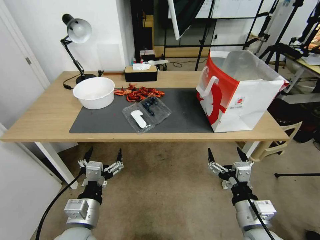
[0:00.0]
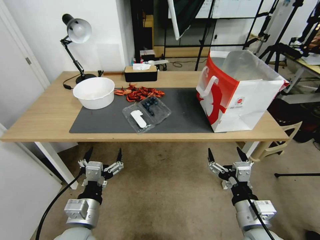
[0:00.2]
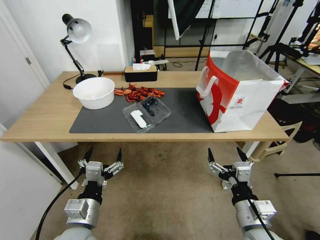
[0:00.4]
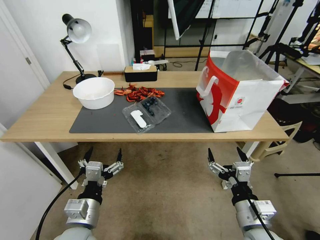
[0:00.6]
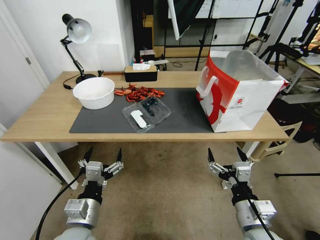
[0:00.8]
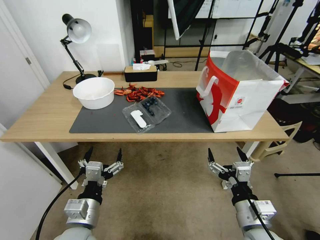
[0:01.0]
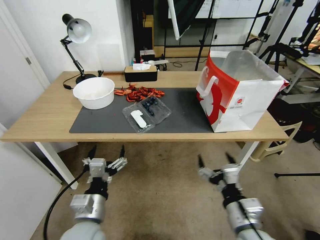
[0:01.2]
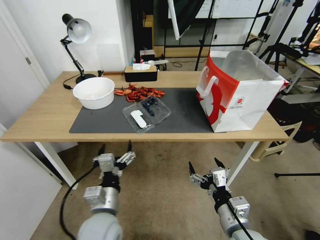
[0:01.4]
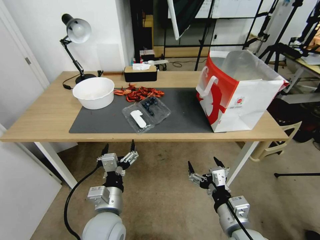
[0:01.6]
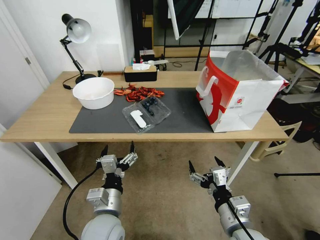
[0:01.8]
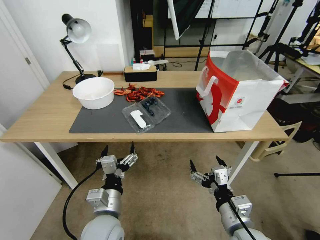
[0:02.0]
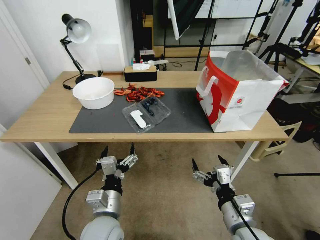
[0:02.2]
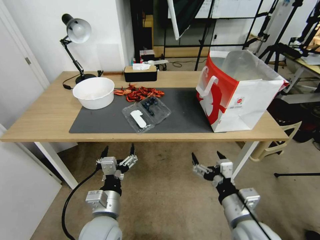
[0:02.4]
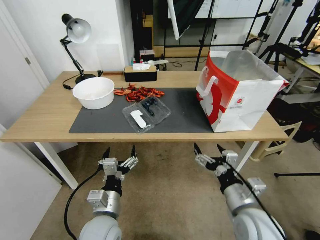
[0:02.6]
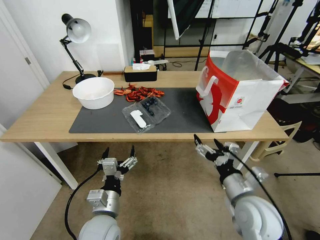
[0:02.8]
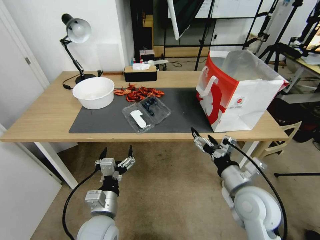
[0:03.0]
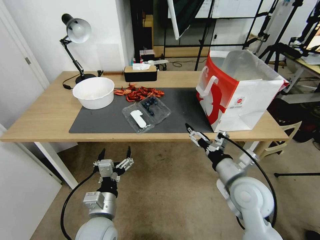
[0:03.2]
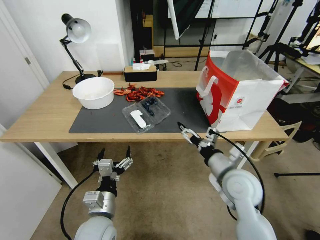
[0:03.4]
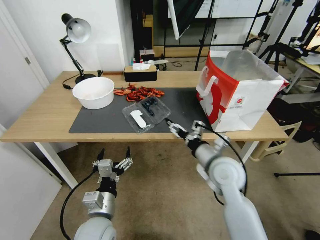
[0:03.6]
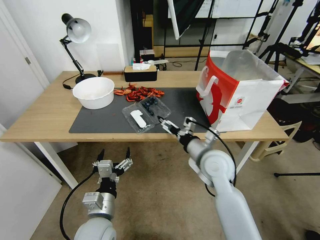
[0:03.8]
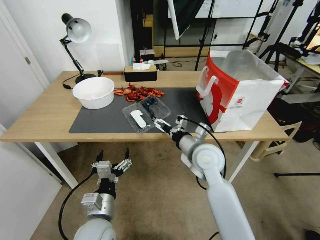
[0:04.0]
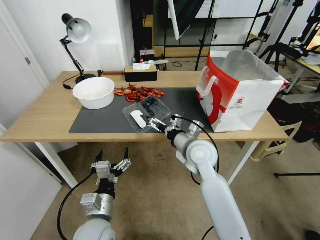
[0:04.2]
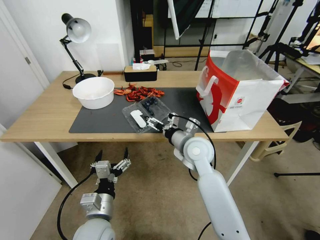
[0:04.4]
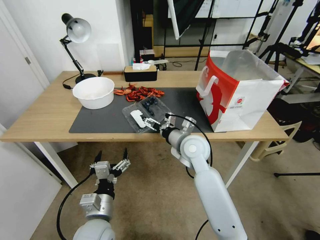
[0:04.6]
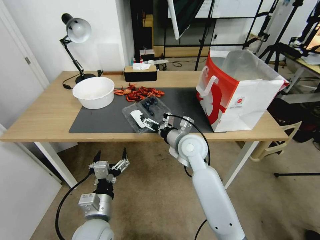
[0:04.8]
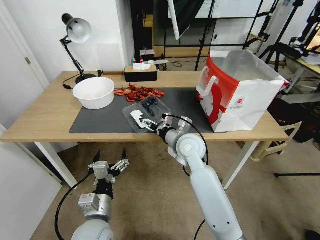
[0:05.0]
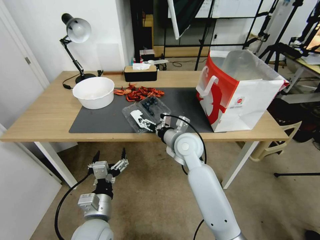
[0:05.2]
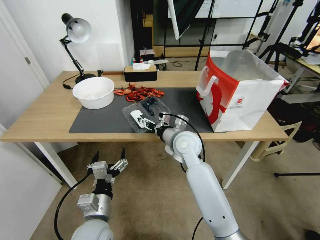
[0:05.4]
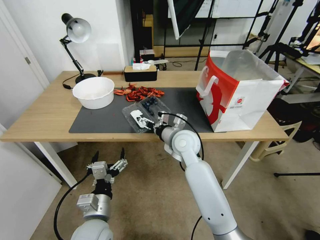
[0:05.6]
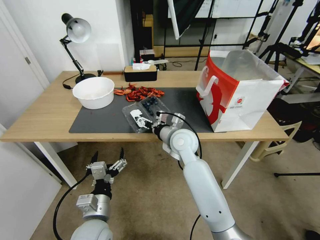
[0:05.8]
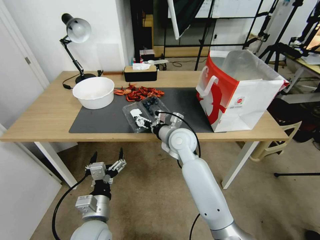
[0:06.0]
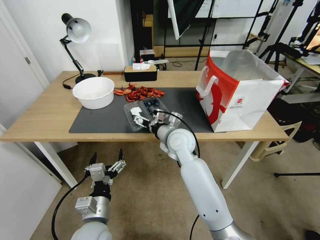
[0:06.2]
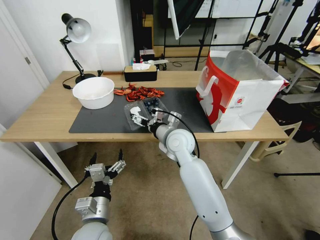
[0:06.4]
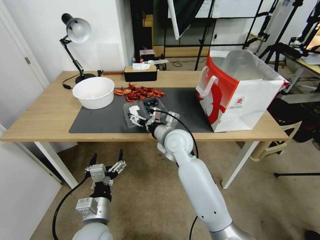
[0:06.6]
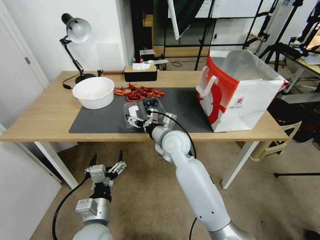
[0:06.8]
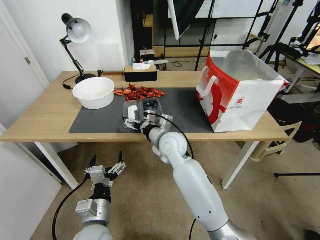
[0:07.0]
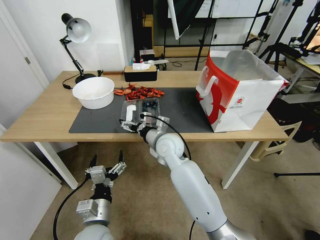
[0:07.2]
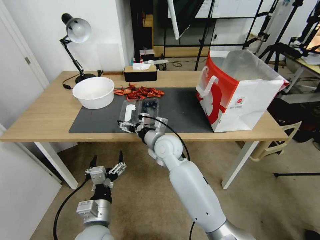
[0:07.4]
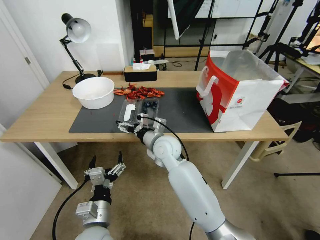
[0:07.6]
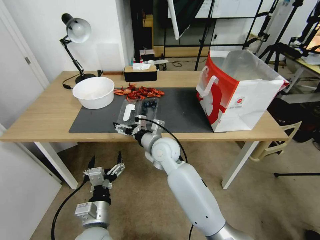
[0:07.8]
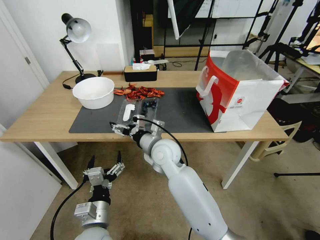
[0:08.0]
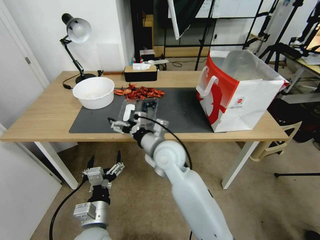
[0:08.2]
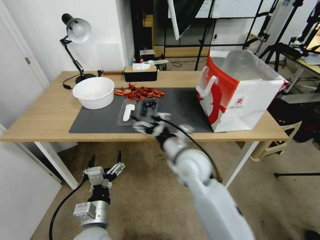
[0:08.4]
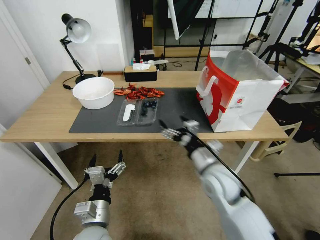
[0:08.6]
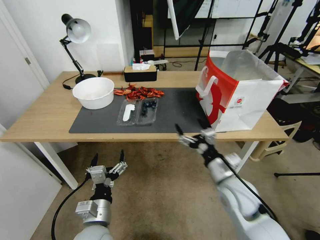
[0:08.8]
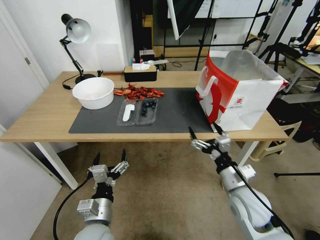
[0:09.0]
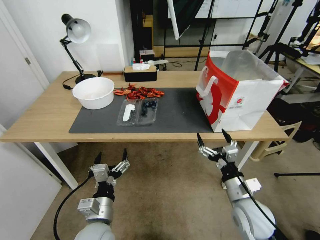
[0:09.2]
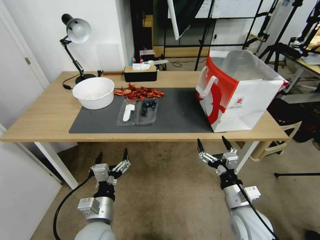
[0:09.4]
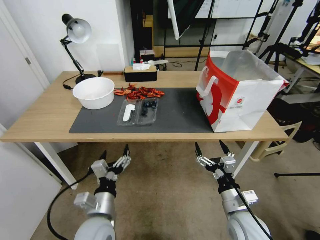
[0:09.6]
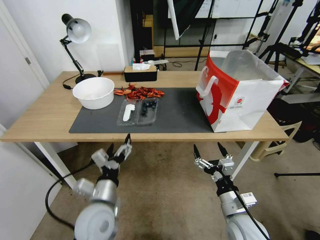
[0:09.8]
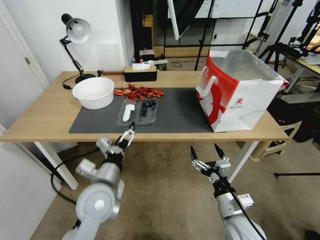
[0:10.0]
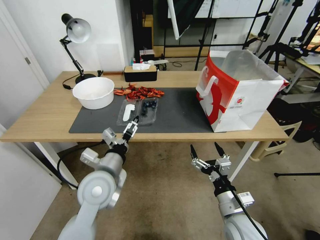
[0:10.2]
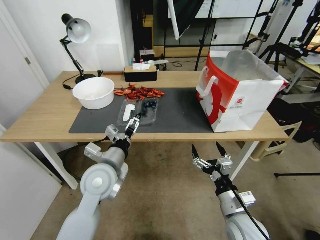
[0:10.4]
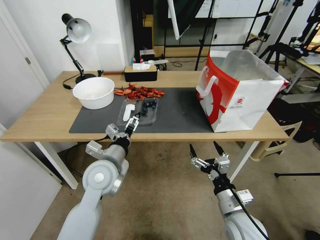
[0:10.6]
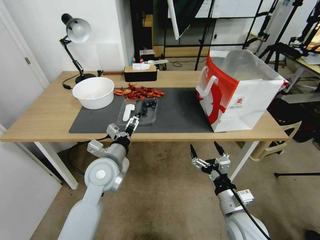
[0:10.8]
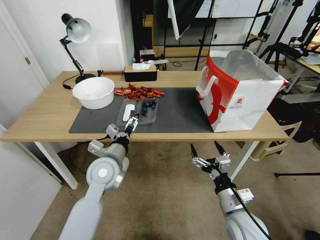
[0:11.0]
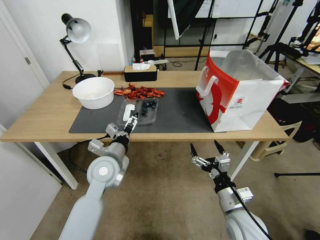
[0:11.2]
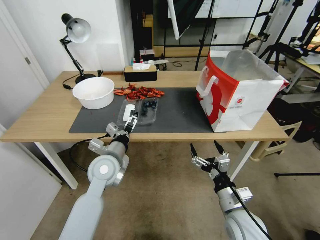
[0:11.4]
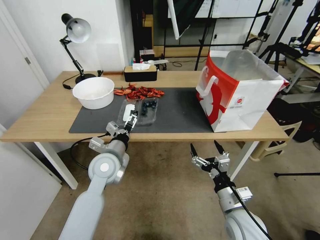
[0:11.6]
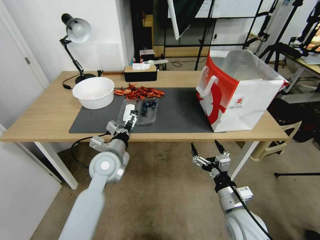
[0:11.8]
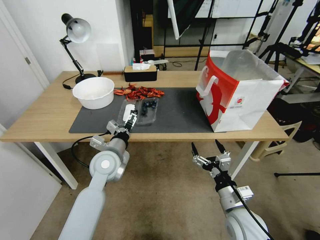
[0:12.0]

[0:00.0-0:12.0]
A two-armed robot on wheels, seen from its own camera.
Task of the whole recording: Close the takeout container lid, then place the container into the takeout bag.
0:01.6 to 0:03.0: The right gripper goes roughly 10 cm forward.
0:03.0 to 0:04.4: The right gripper moves forward and to the left, roughly 20 cm.
0:04.4 to 0:06.0: The right gripper moves some 5 cm.
0:06.0 to 0:07.6: The right gripper is displaced to the left by roughly 5 cm.
0:07.6 to 0:09.0: The right gripper goes approximately 30 cm to the right and backward.
0:09.0 to 0:10.4: The left gripper travels forward and upward by approximately 15 cm. The right gripper is displaced backward by about 5 cm.
0:10.4 to 0:12.0: The left gripper goes about 5 cm forward.

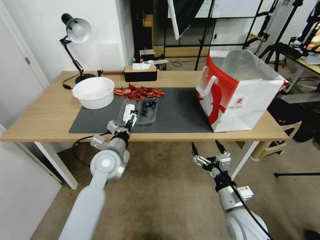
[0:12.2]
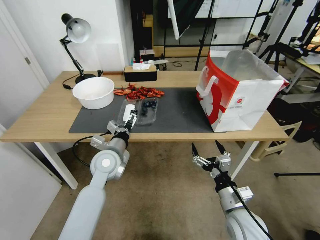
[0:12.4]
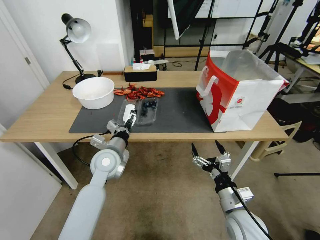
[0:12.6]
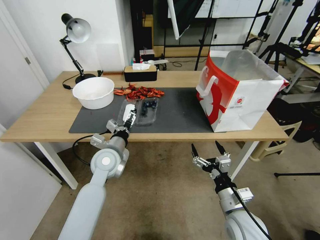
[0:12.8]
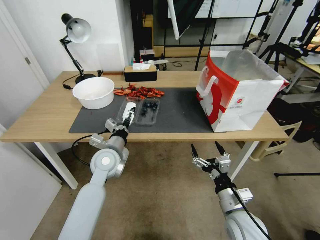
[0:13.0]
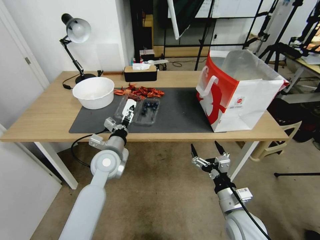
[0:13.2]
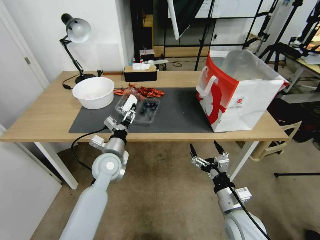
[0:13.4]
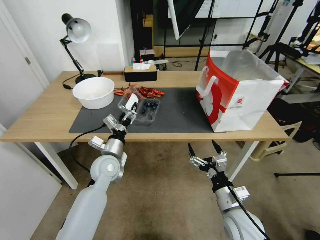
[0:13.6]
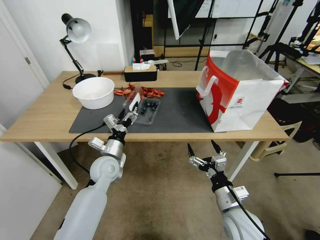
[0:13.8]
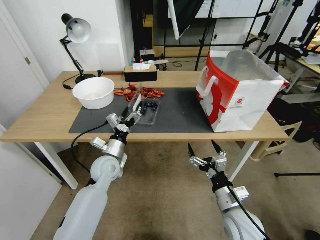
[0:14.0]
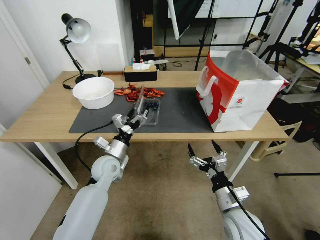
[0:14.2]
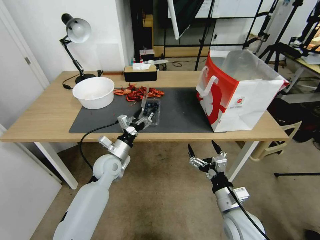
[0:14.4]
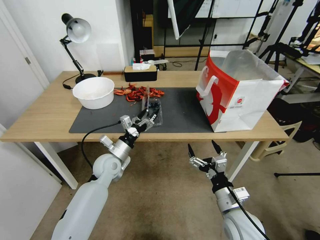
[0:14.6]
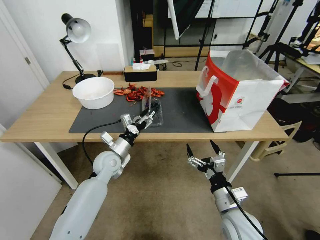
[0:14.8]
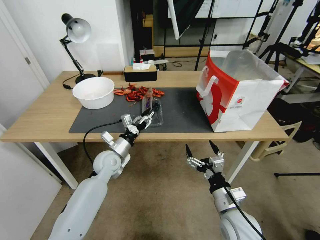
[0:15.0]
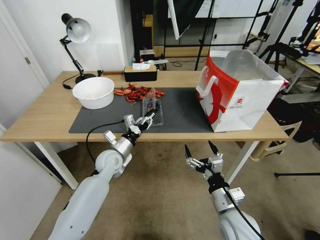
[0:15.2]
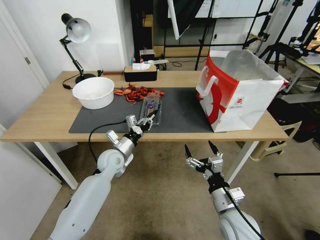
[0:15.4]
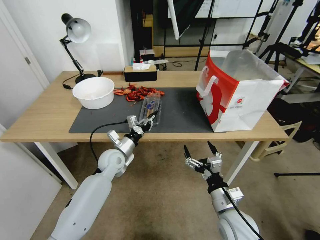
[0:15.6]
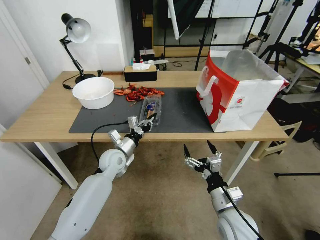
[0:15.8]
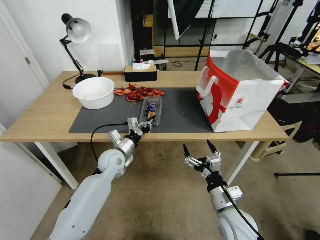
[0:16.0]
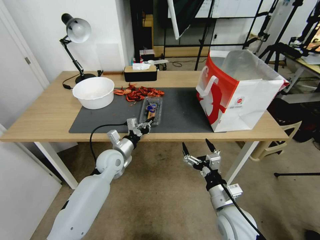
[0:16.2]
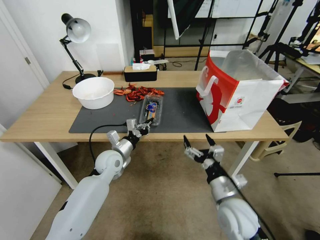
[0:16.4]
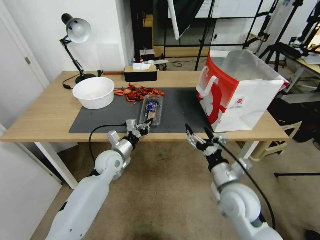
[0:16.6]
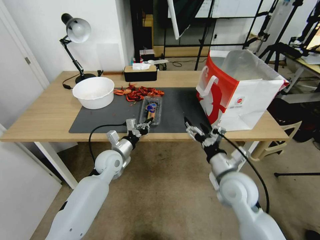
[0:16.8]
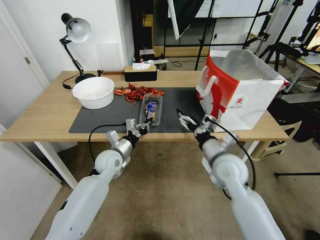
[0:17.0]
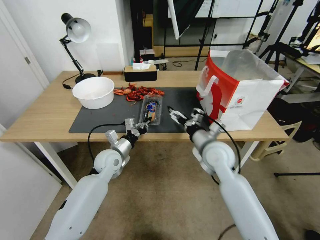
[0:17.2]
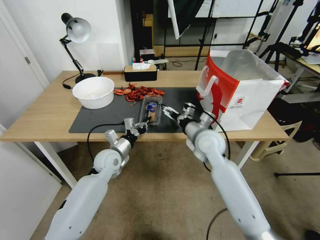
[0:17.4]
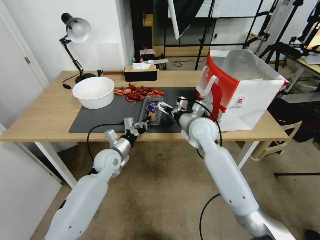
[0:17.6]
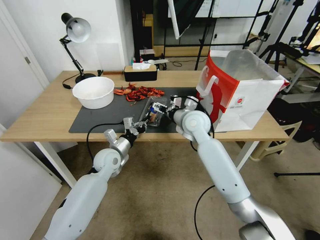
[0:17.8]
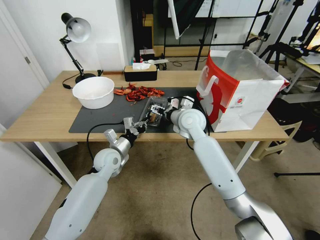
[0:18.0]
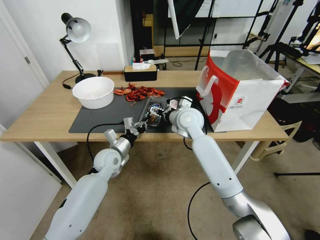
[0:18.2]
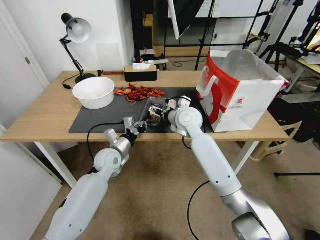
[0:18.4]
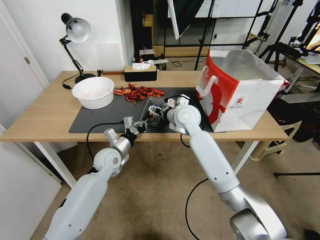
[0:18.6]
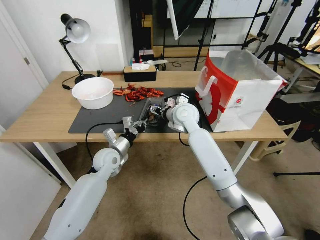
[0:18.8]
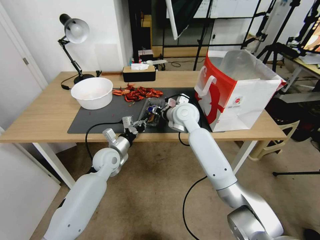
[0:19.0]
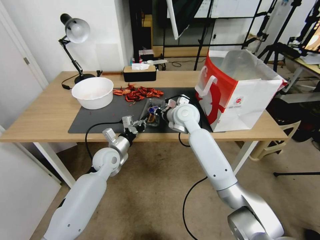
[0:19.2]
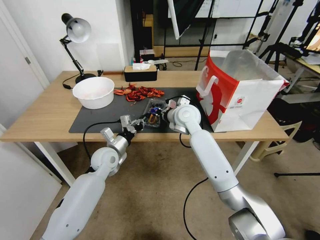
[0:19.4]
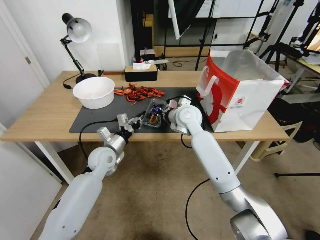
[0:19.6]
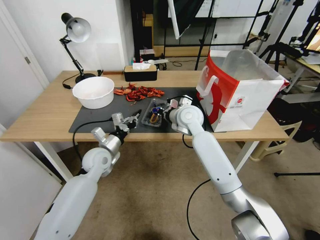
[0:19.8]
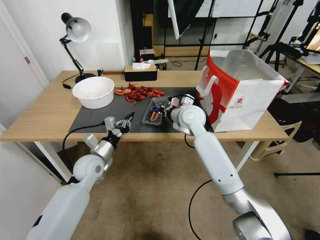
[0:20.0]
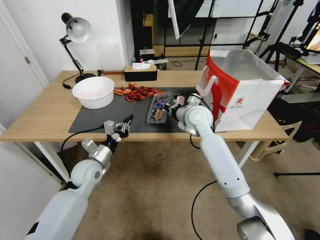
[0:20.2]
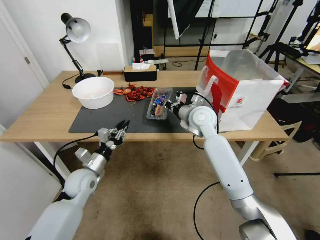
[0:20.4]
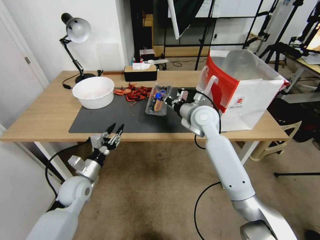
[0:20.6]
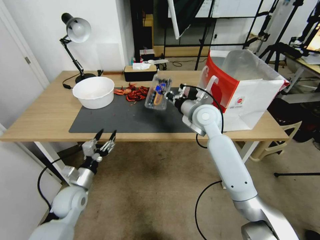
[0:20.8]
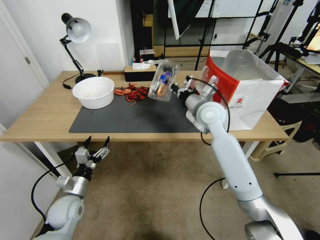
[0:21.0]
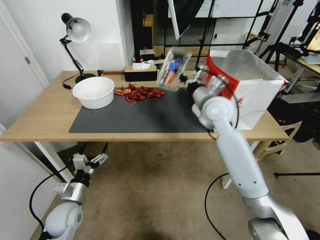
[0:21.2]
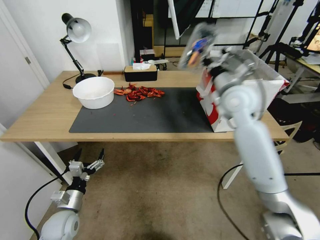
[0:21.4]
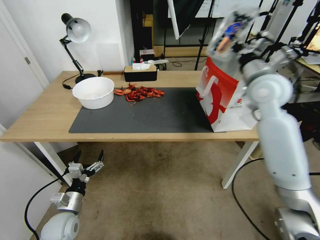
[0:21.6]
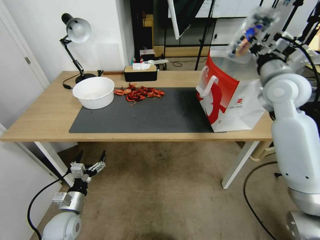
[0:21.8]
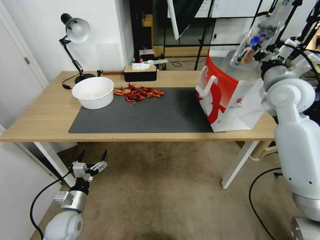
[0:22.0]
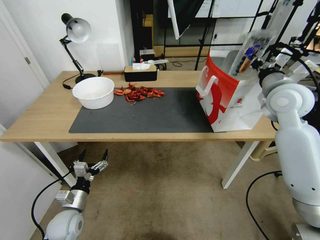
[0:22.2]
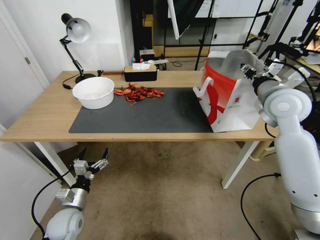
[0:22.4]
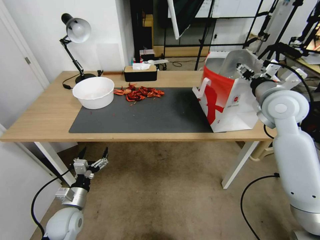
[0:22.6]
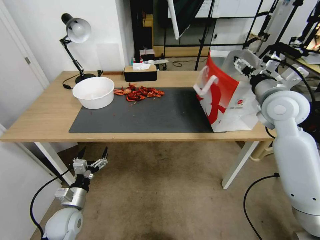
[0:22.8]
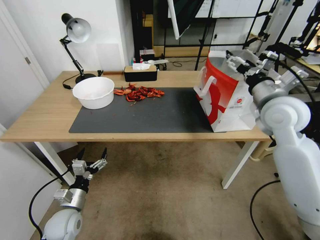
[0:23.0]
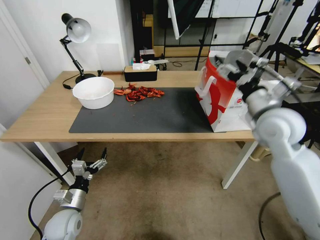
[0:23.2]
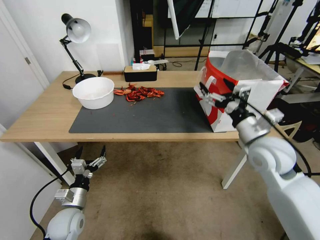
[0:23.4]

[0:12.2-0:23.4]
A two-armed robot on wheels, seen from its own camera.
Task of the whole recording: Close the takeout container lid, then place the container into the takeout bag.
0:12.2 to 0:13.8: The left gripper is displaced downward by approximately 5 cm.
0:13.8 to 0:15.4: The left gripper closes its fingers.
0:15.4 to 0:17.0: The right gripper is displaced forward and upward by about 15 cm.
0:17.0 to 0:18.6: The right gripper heads forward and to the left, covering some 20 cm.
0:18.6 to 0:20.2: The right gripper closes; the left gripper goes roughly 10 cm to the left and backward.
0:20.2 to 0:21.8: The left gripper goes about 20 cm backward, downward and to the left, and opens up. Meanwhile the right gripper moves to the right and upward, approximately 25 cm.
0:21.8 to 0:23.4: The right gripper goes approximately 15 cm downward and backward, and opens.
